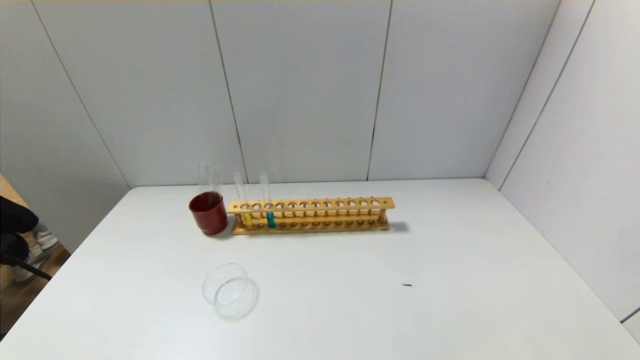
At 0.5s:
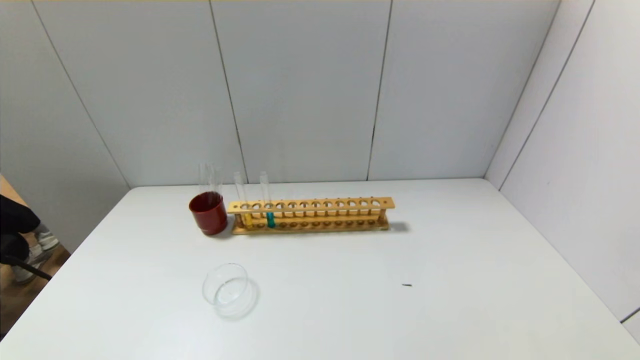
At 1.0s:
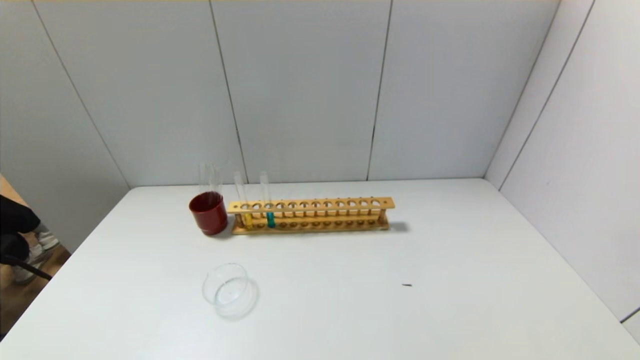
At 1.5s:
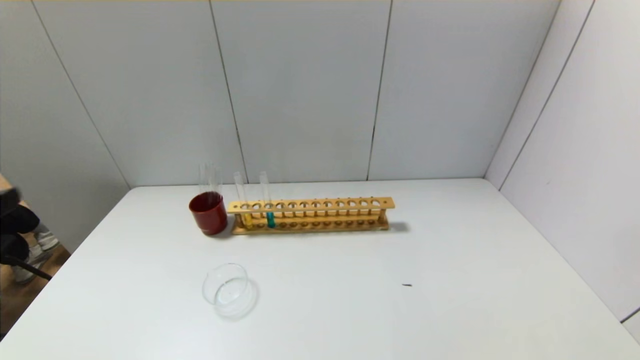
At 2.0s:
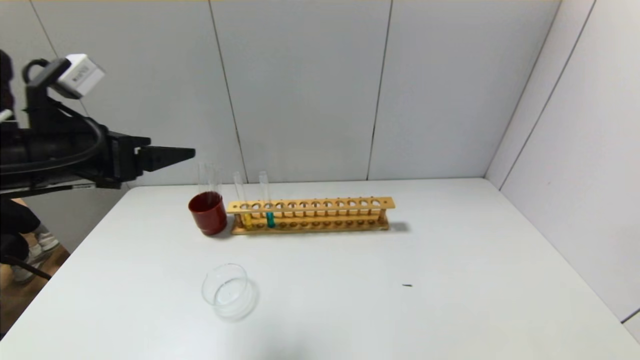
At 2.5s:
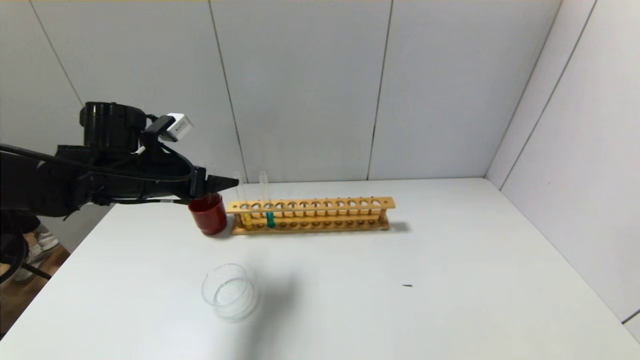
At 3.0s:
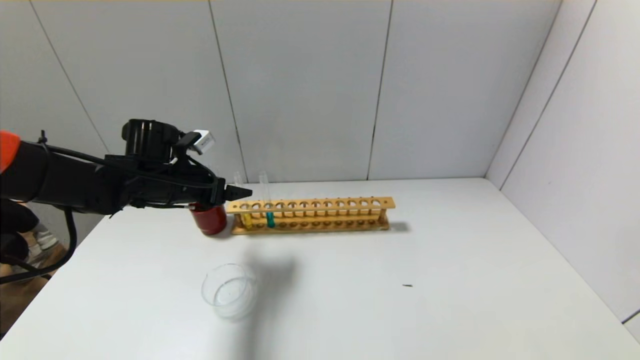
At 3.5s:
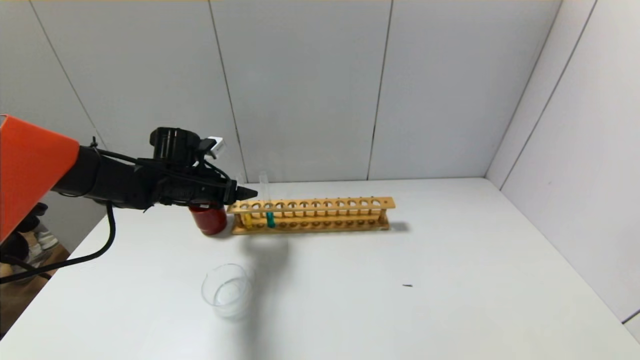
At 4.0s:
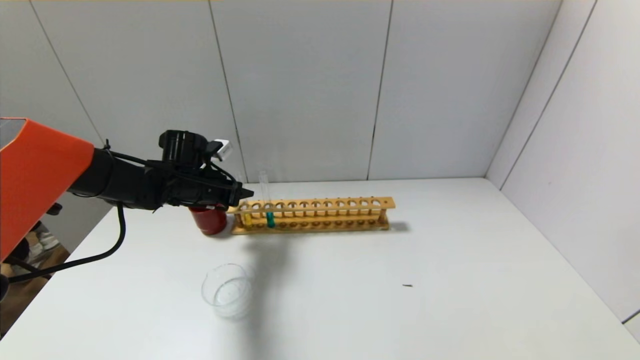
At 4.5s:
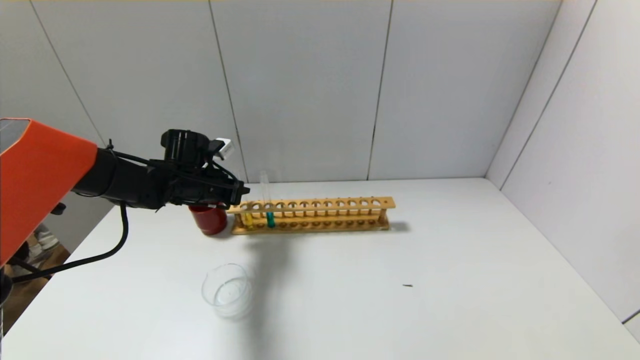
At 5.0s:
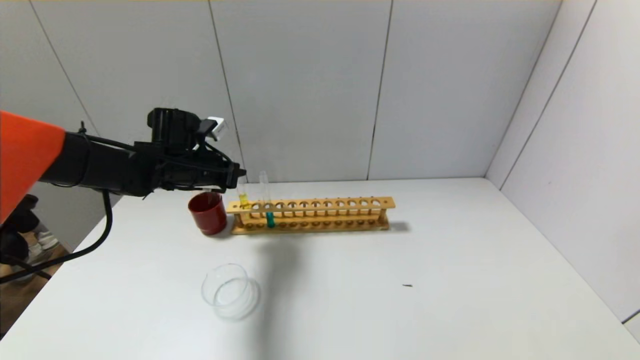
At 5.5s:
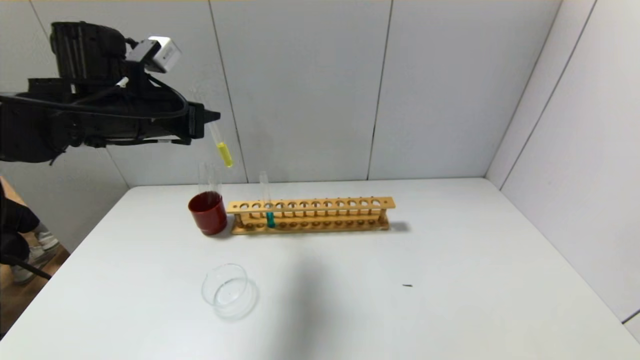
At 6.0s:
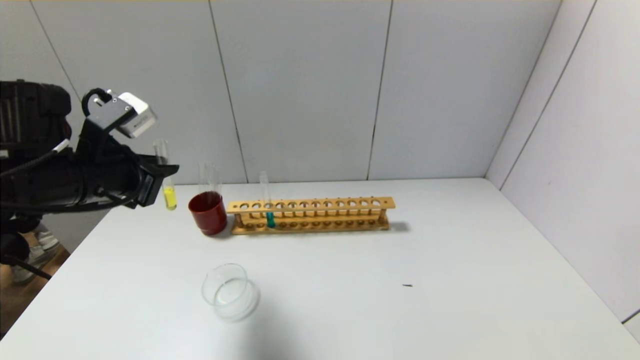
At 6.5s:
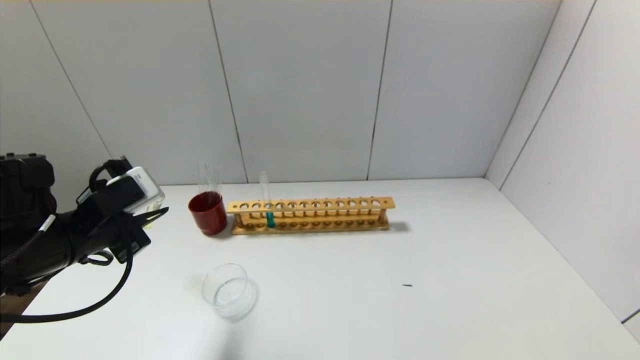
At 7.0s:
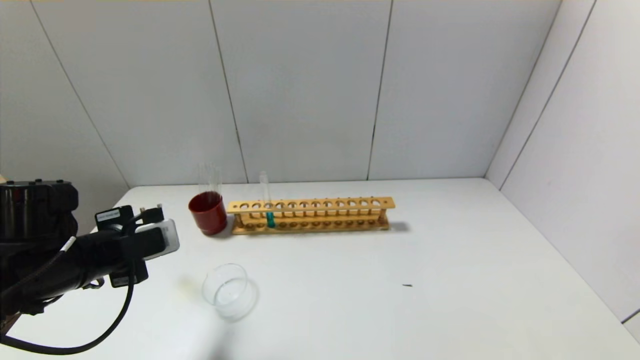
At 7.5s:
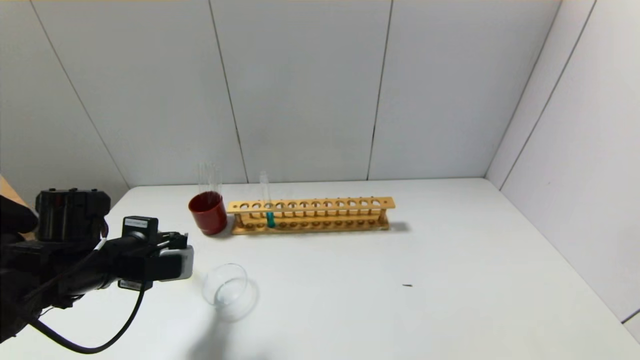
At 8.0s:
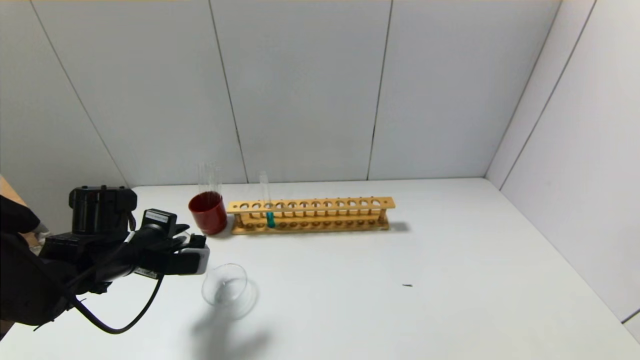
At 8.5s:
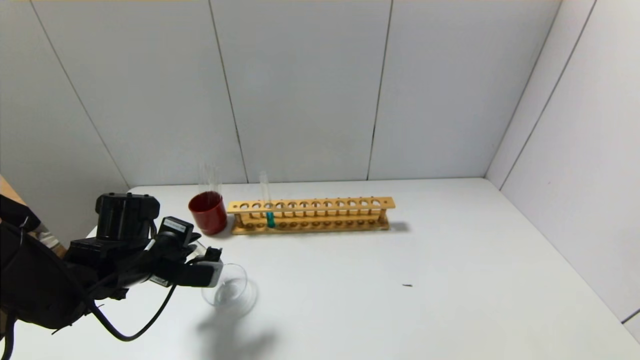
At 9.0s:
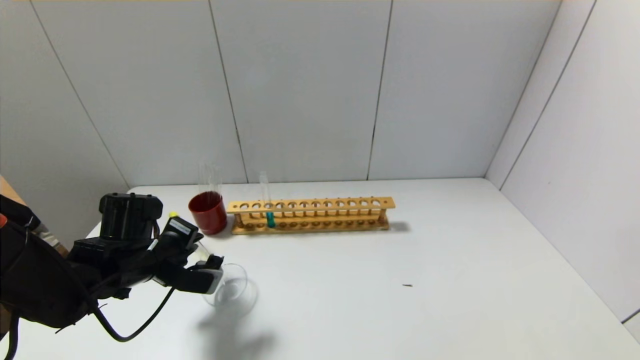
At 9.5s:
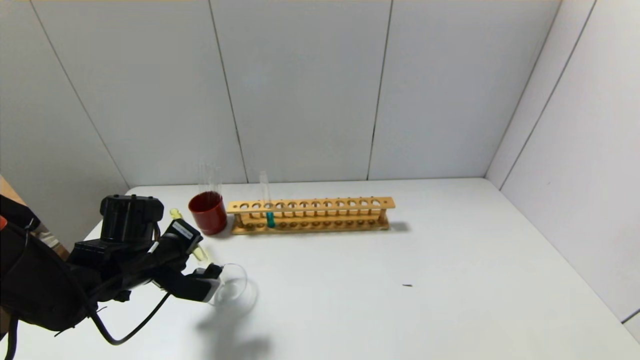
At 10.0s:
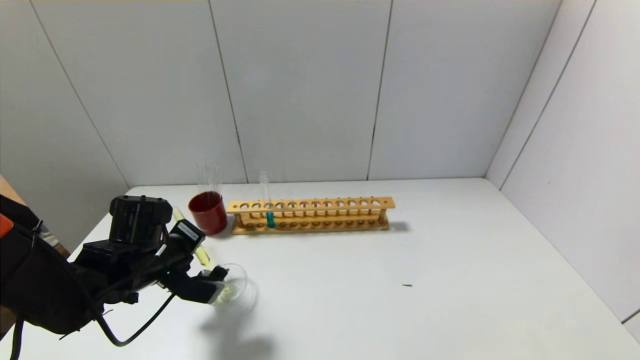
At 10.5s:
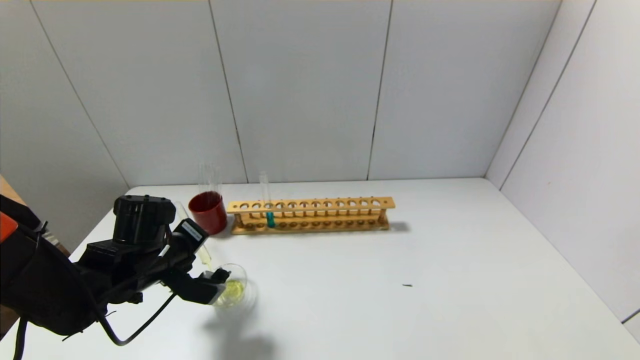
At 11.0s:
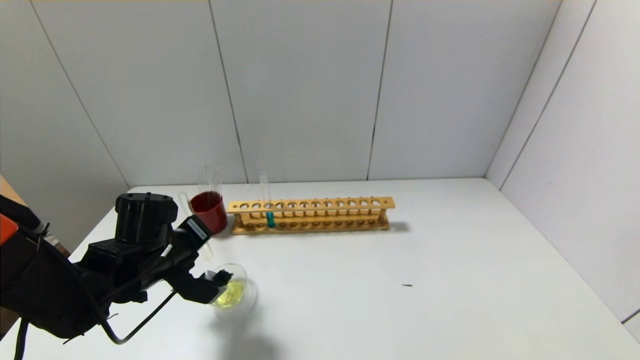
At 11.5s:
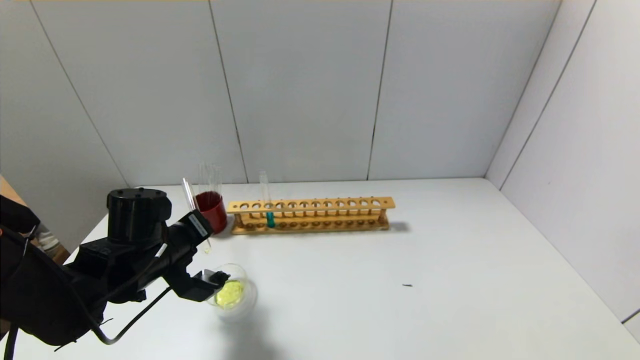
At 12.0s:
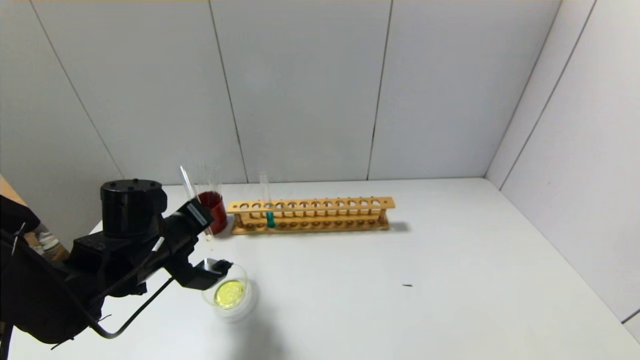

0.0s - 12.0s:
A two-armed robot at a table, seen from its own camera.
Step, 0.0s - 4.0s: Grasp the yellow reagent with the left gripper.
0.0s - 2.0s: The left gripper shifts roughly 35 cm forward and upward.
2.0s - 4.0s: The left gripper goes roughly 20 cm forward and downward, and closes its fingers.
4.0s - 6.0s: The left gripper heads backward and upward, covering about 20 cm.
6.0s - 8.0s: The left gripper shifts about 15 cm downward.

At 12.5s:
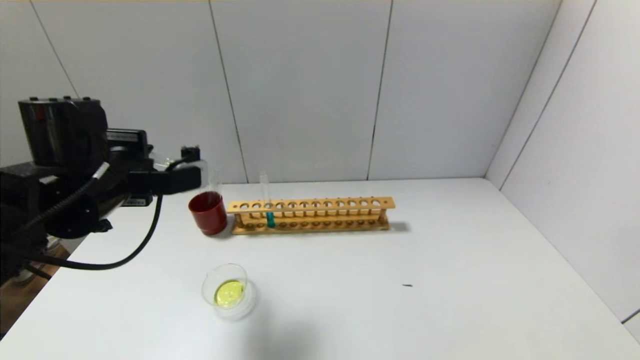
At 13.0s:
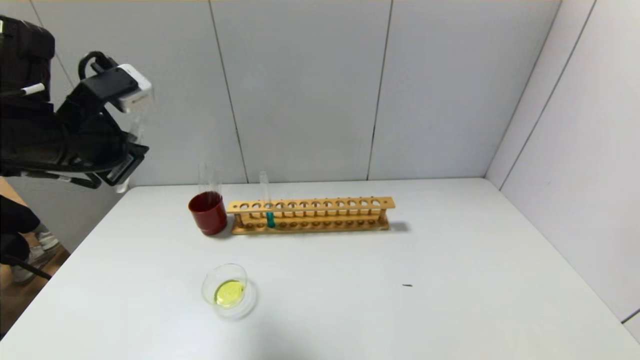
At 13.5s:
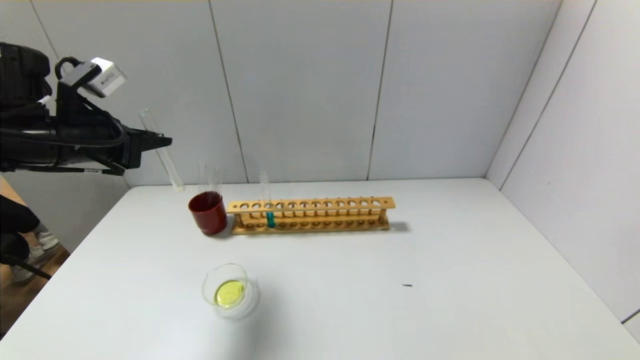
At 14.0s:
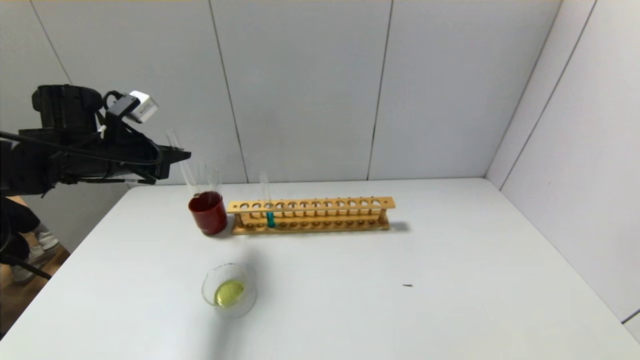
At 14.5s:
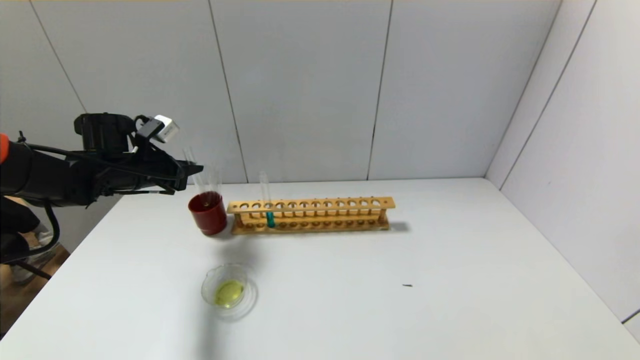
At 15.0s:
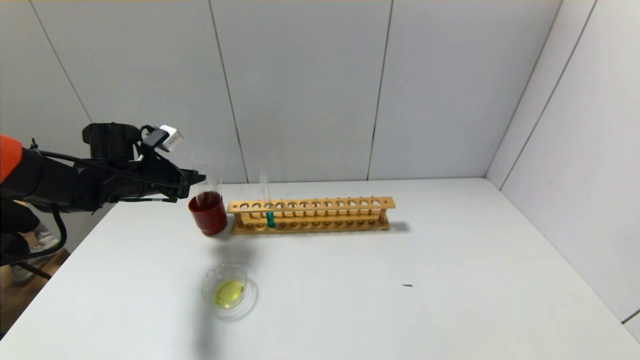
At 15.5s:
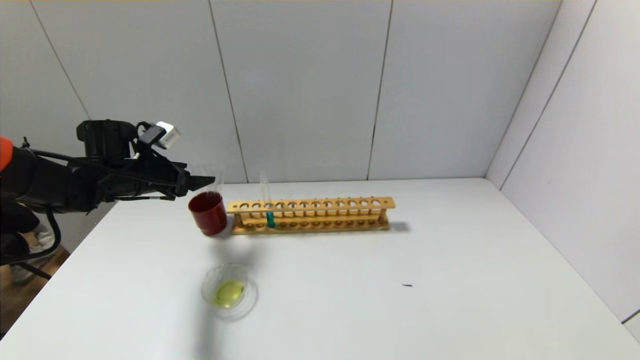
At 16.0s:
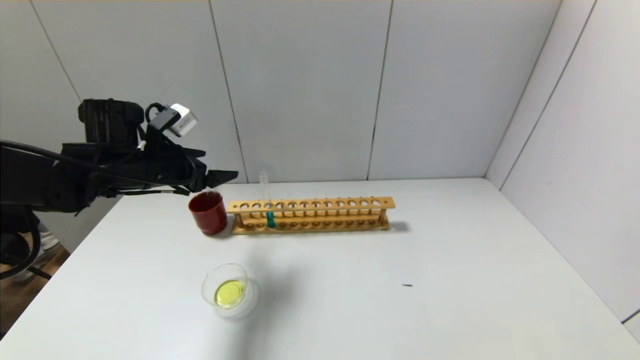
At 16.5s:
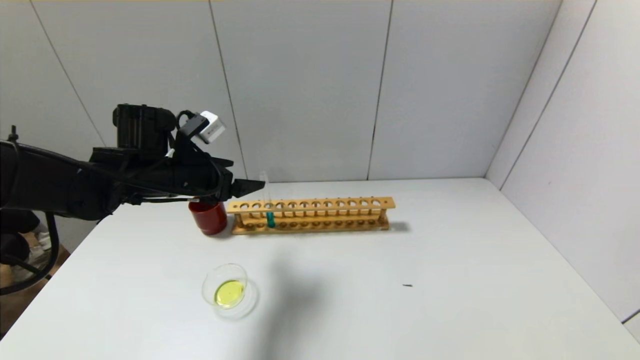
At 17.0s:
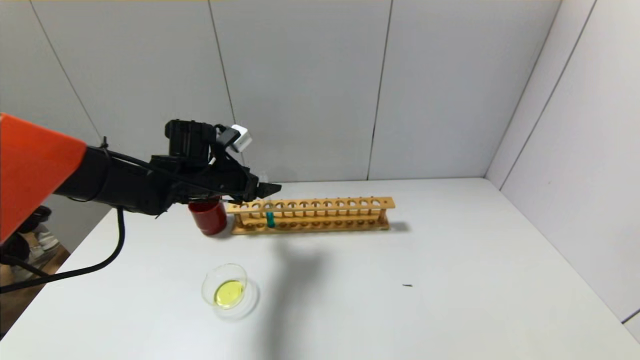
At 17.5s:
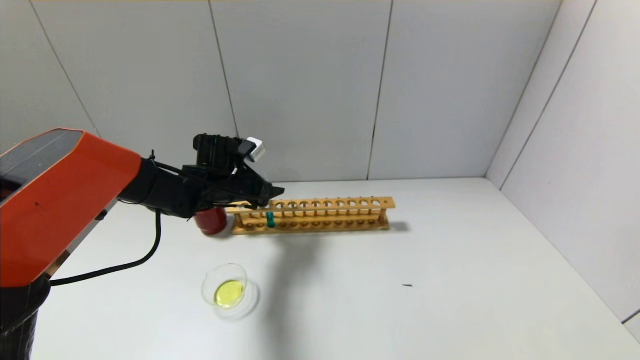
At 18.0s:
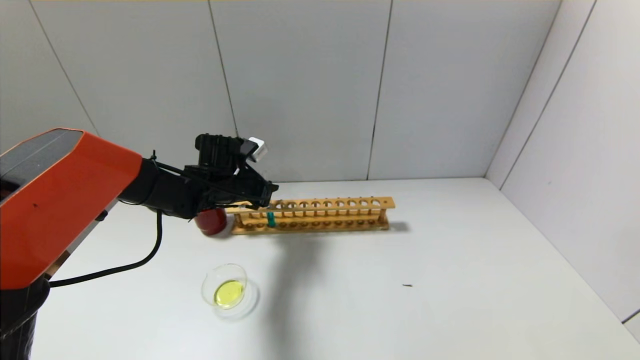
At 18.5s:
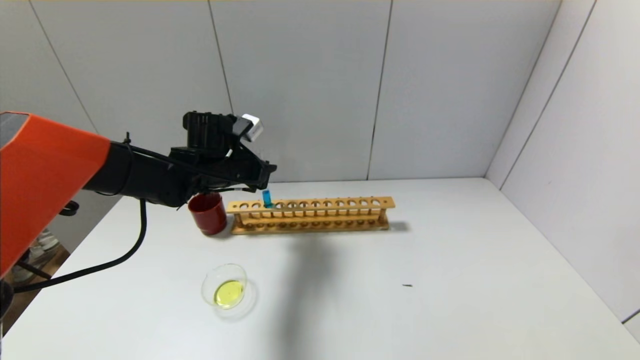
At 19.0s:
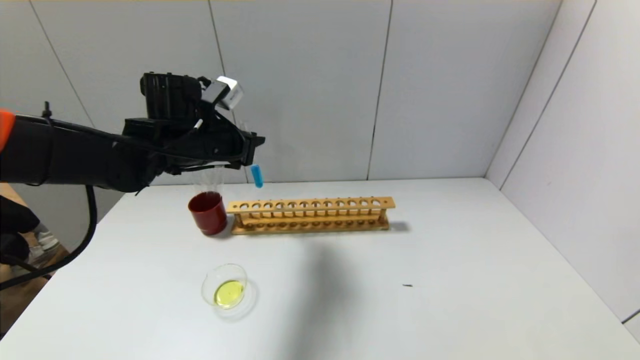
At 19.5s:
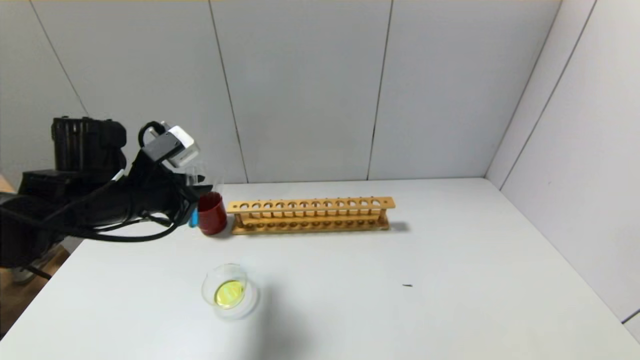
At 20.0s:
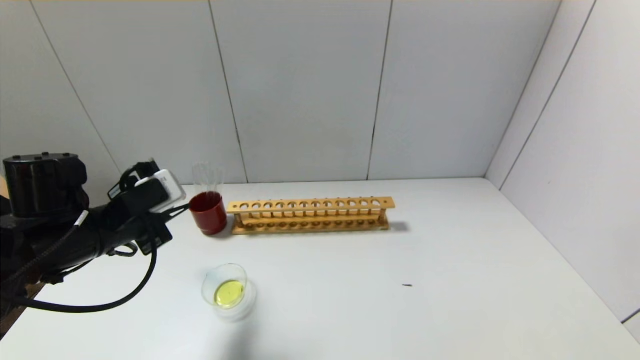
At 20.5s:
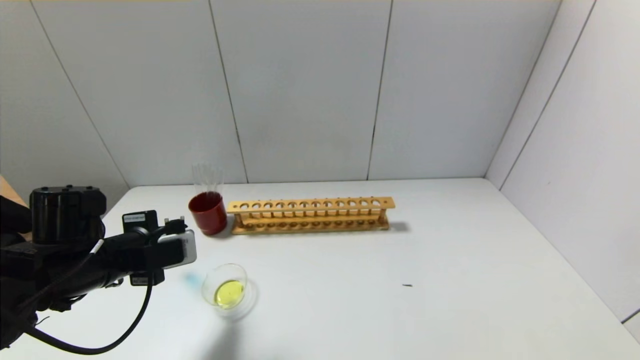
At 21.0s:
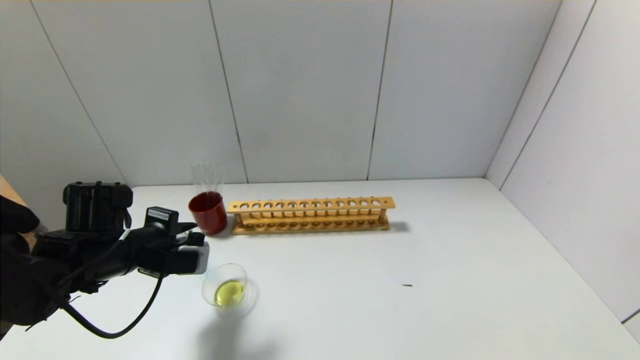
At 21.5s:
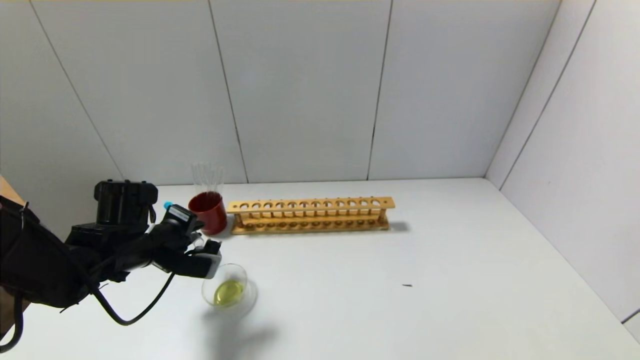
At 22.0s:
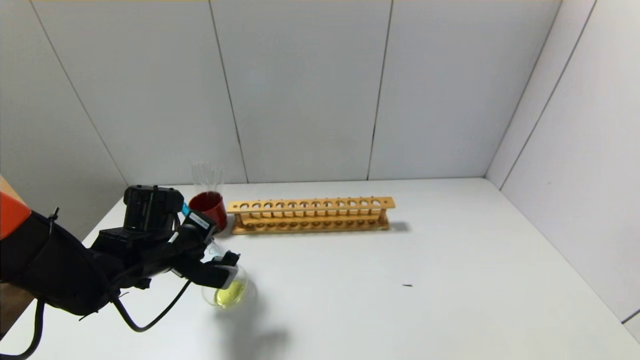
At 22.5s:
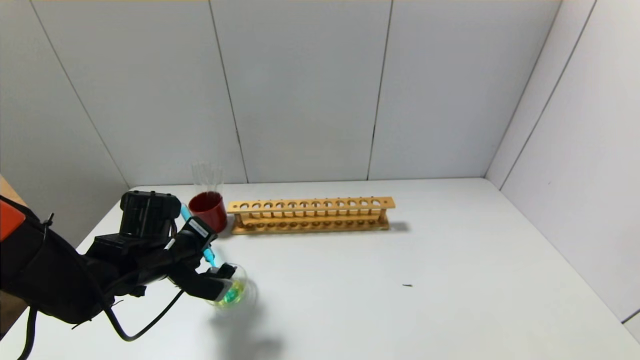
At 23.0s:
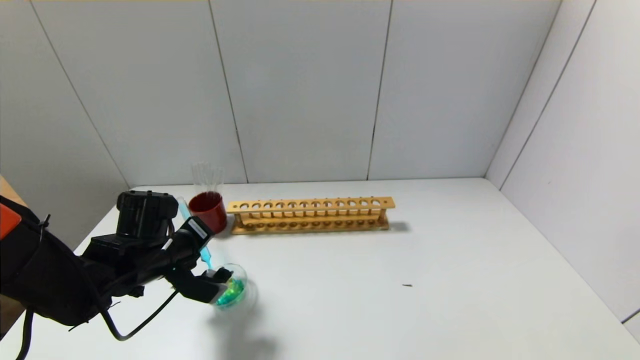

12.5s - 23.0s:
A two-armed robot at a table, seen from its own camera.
Step, 12.5s - 15.0s: Place the test tube into the brown cup with the left gripper.
Step, 15.5s - 17.5s: Grasp the blue reagent with the left gripper.
12.5s - 14.5s: The left gripper heads forward, to the left and downward, covering roughly 15 cm.
14.5s - 16.5s: The left gripper shifts about 10 cm to the right and backward, and opens.
16.5s - 19.0s: The left gripper closes.
19.0s - 21.0s: The left gripper heads downward, backward and to the left, covering about 15 cm.
